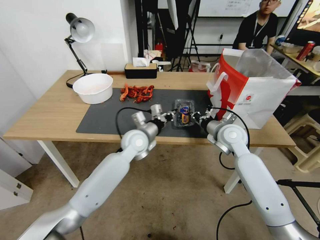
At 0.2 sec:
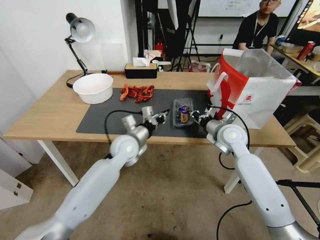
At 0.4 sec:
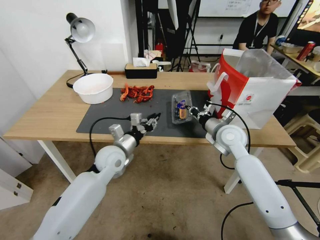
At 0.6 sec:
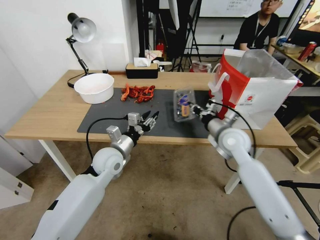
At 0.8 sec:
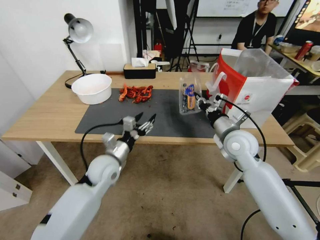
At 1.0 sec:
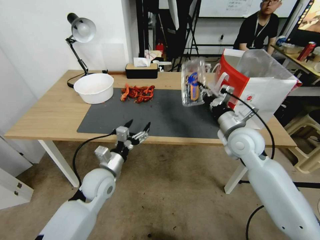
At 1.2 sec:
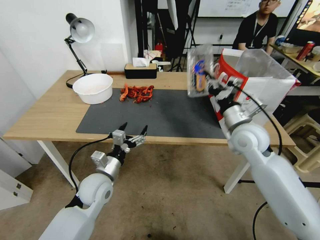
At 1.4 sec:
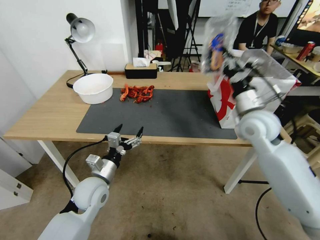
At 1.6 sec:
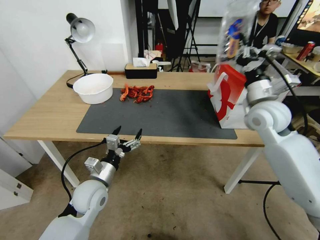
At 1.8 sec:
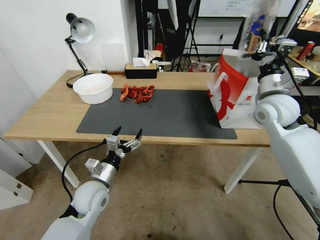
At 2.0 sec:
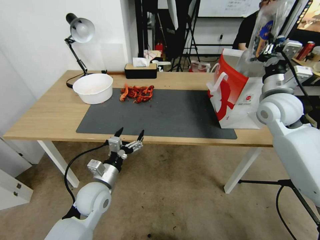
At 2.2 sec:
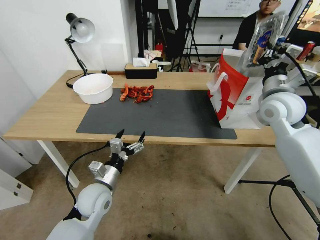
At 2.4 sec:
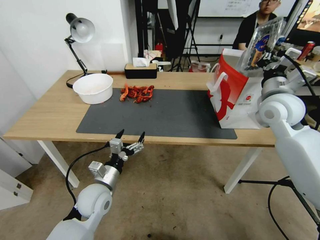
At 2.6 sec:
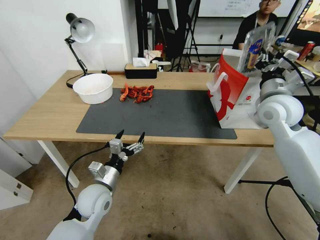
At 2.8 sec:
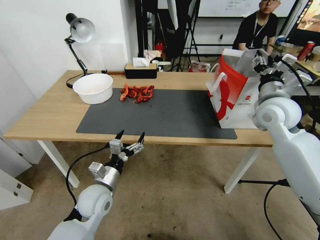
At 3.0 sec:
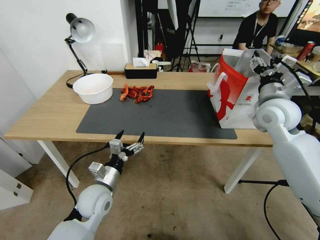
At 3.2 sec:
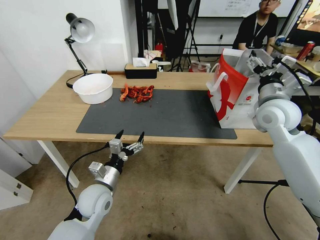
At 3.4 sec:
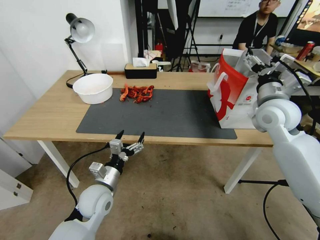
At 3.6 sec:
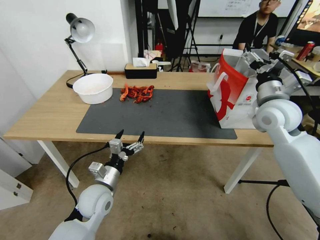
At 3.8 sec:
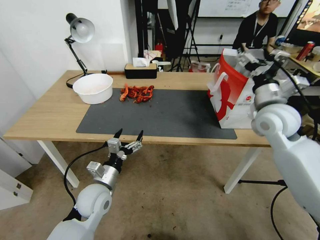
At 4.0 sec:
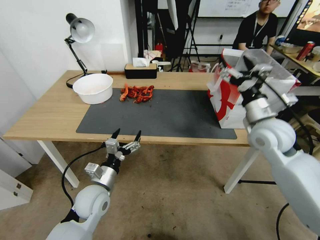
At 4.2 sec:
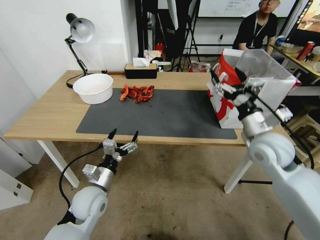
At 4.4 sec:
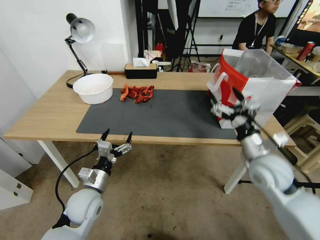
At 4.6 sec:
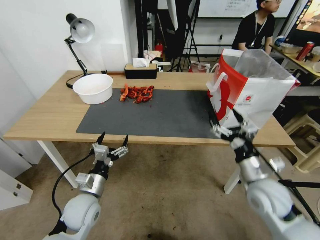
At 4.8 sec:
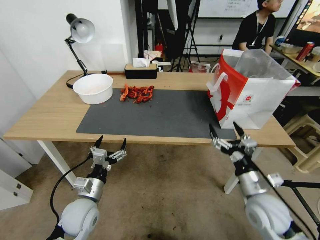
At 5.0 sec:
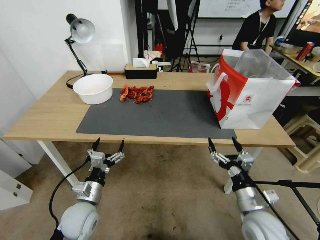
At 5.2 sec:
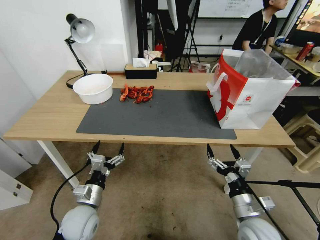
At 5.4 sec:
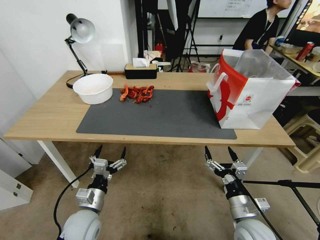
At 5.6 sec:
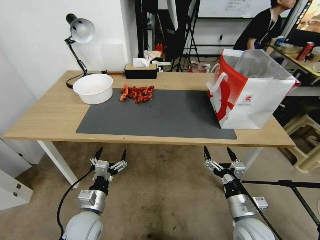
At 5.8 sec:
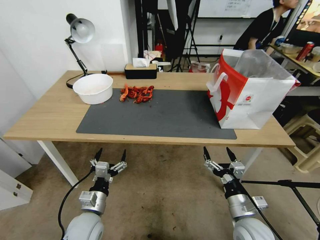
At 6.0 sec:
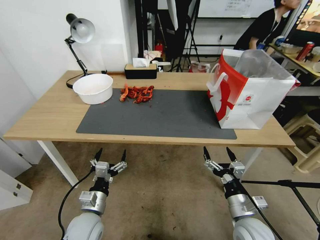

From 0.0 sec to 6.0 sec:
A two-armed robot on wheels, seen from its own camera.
Task of the whole recording: Close the takeout container lid, then place the container into the takeout bag.
From 0.0 sec to 1.6 sec: The left gripper travels backward and to the left by some 20 cm, and opens up; the right gripper heads upward and to the right, covering roughly 15 cm.
From 1.6 sec to 3.0 sec: The right gripper opens its fingers.
From 3.0 sec to 4.4 sec: The right gripper travels downward and backward by roughly 15 cm, and opens up.
From 4.4 sec to 6.0 sec: The right gripper is displaced downward and backward by some 20 cm. Meanwhile the left gripper shifts some 5 cm backward.
